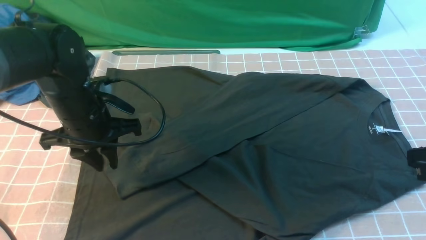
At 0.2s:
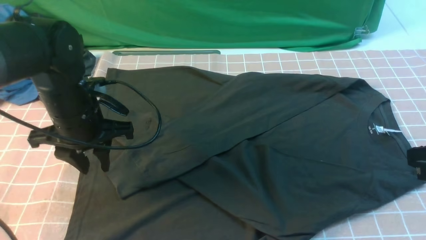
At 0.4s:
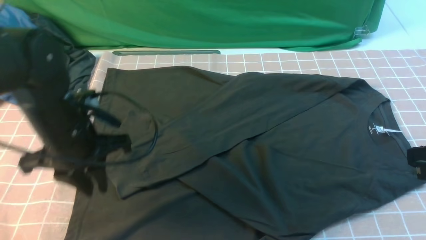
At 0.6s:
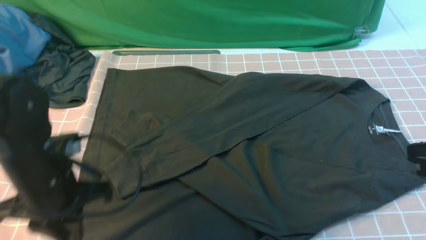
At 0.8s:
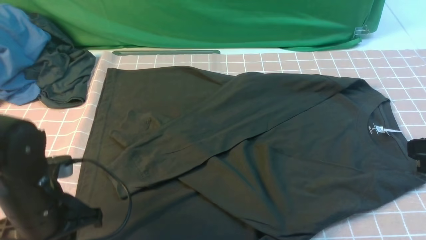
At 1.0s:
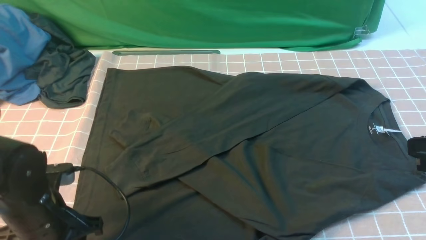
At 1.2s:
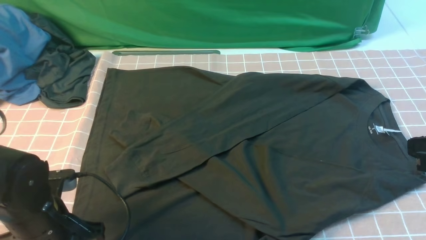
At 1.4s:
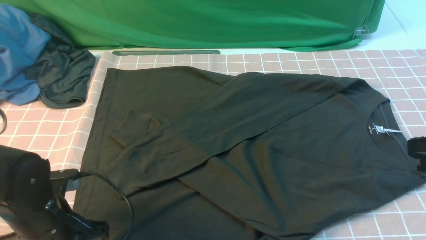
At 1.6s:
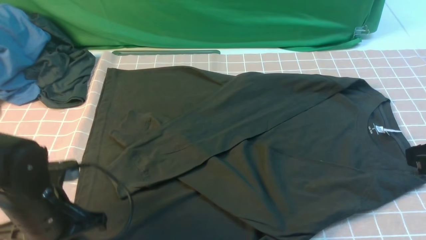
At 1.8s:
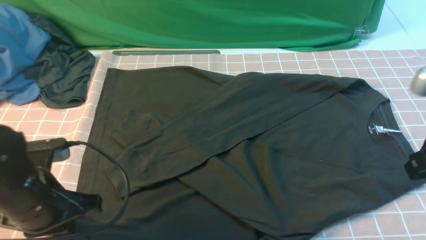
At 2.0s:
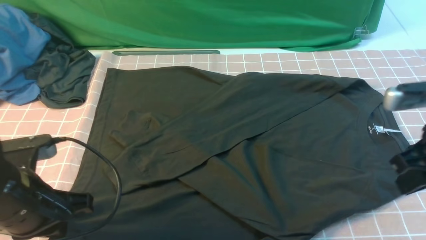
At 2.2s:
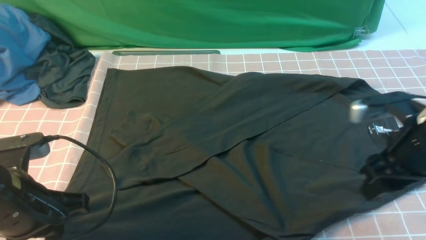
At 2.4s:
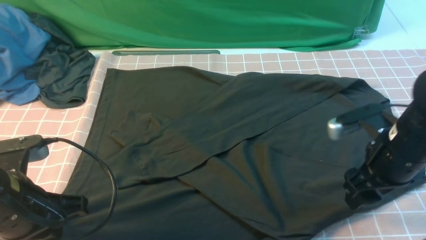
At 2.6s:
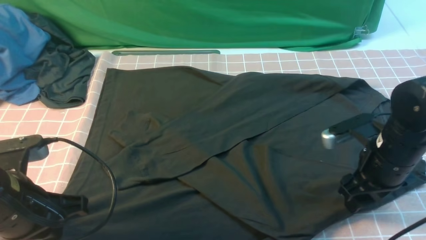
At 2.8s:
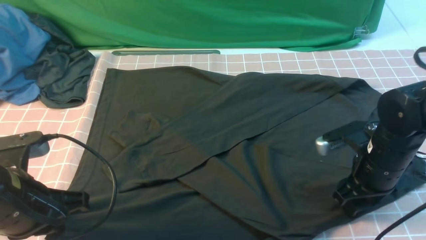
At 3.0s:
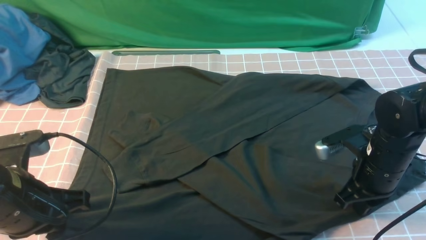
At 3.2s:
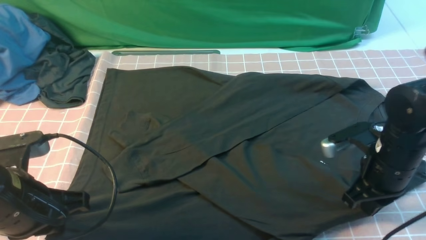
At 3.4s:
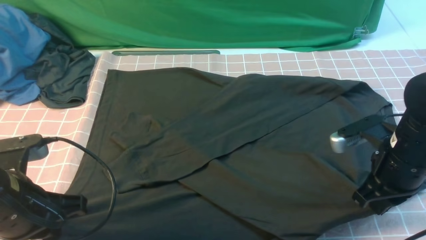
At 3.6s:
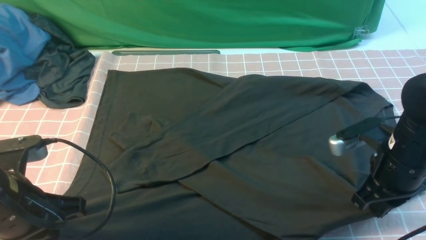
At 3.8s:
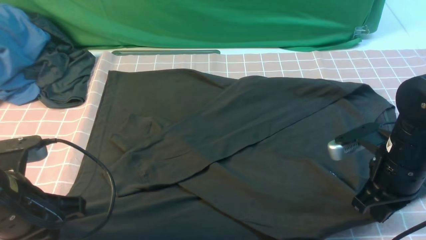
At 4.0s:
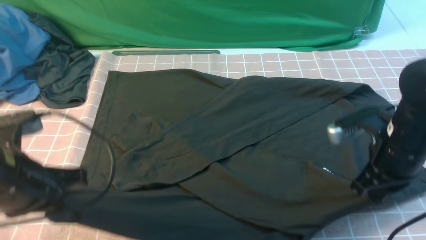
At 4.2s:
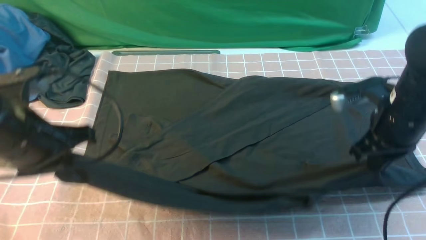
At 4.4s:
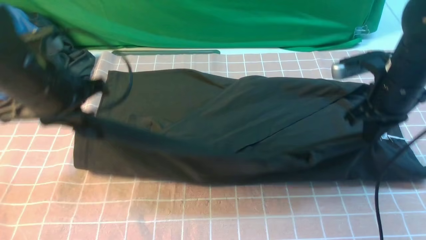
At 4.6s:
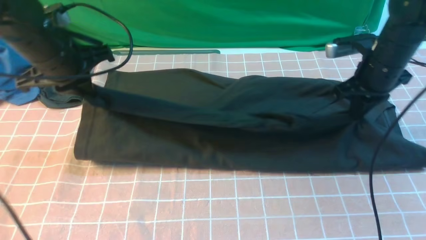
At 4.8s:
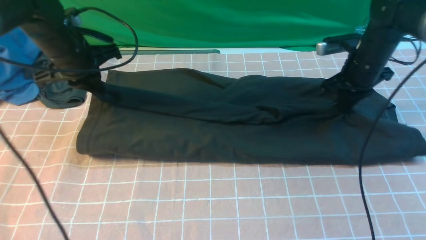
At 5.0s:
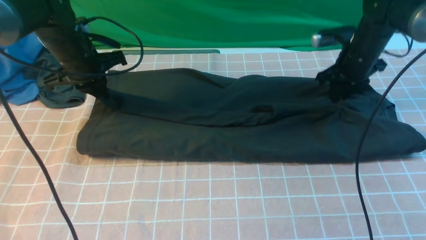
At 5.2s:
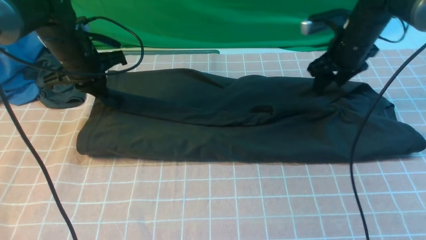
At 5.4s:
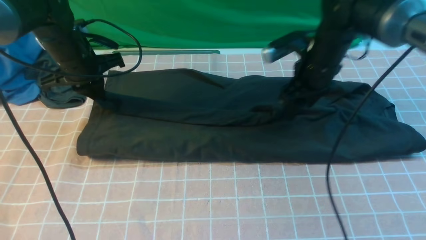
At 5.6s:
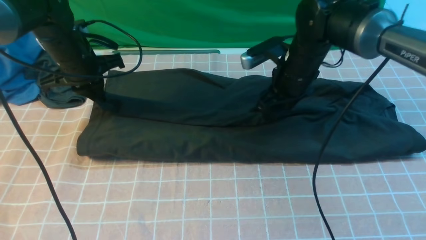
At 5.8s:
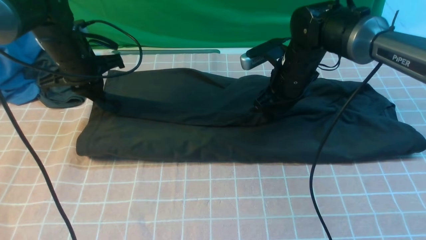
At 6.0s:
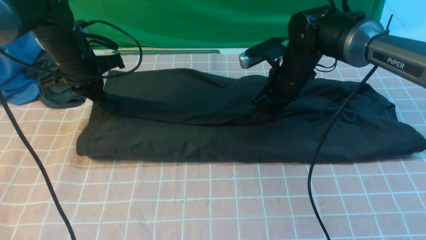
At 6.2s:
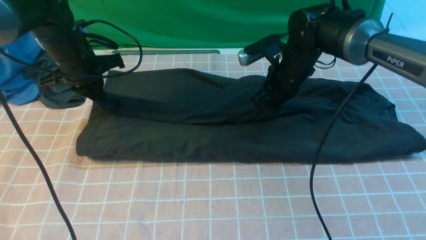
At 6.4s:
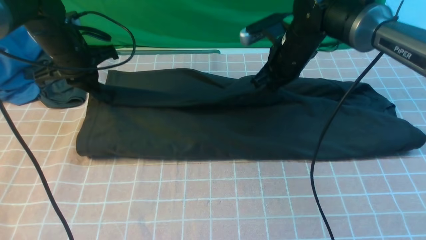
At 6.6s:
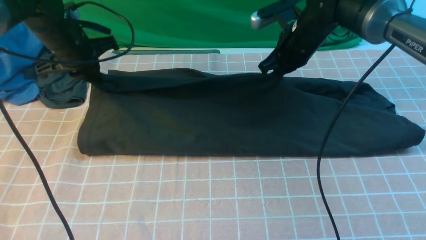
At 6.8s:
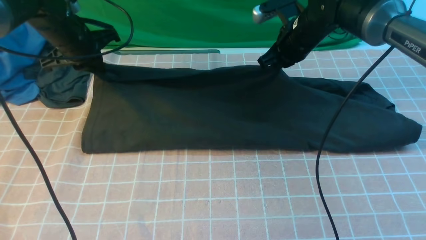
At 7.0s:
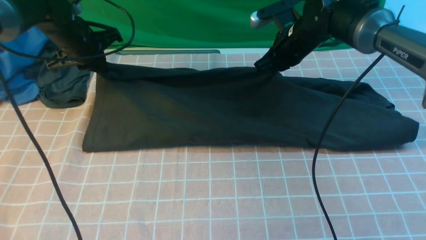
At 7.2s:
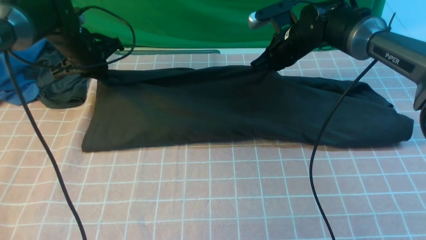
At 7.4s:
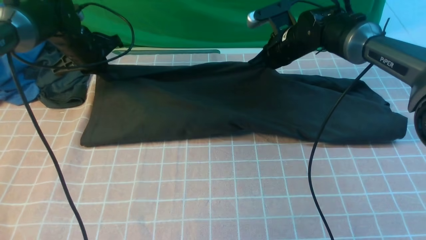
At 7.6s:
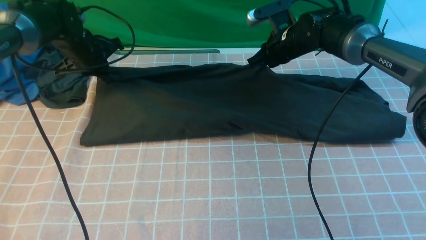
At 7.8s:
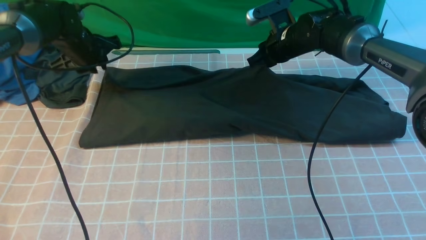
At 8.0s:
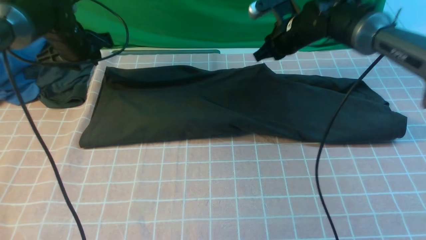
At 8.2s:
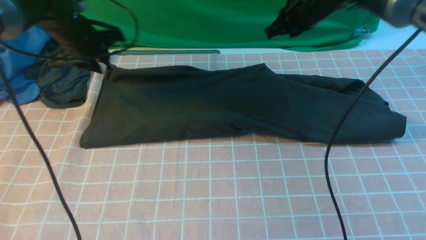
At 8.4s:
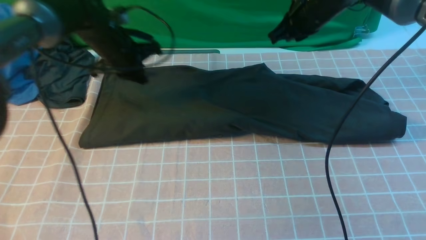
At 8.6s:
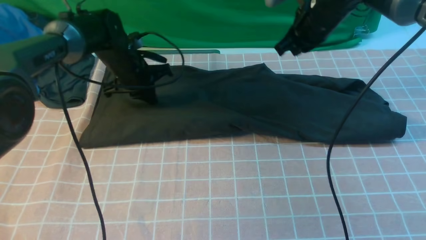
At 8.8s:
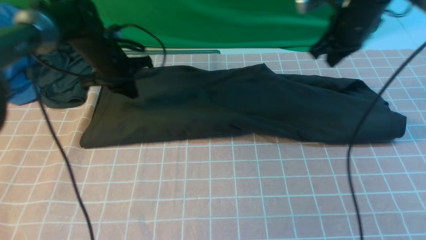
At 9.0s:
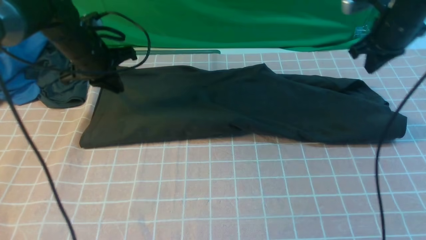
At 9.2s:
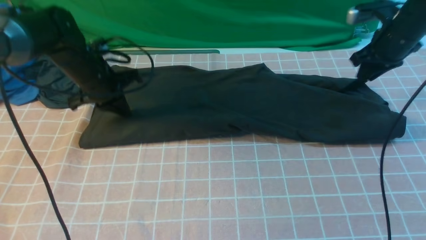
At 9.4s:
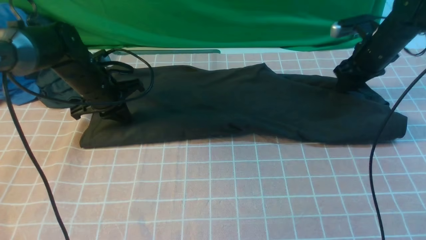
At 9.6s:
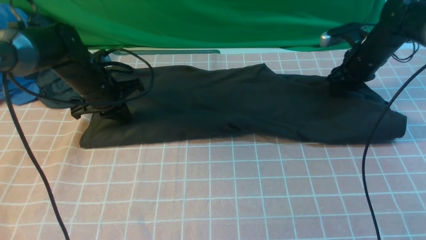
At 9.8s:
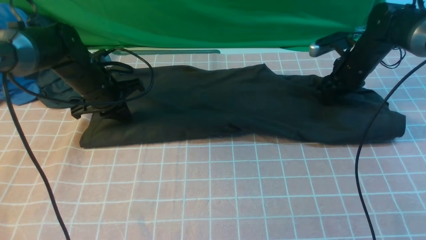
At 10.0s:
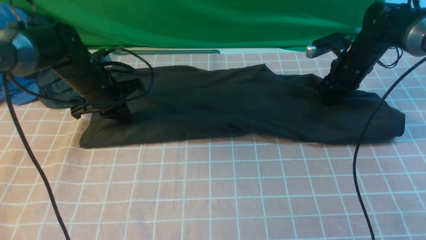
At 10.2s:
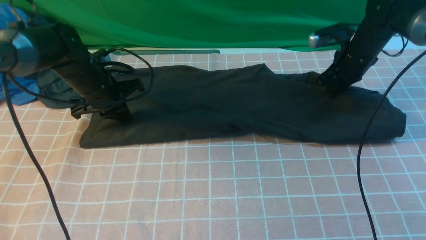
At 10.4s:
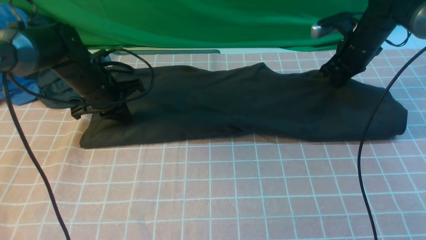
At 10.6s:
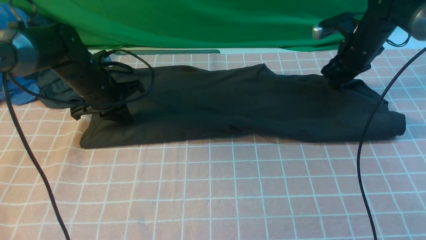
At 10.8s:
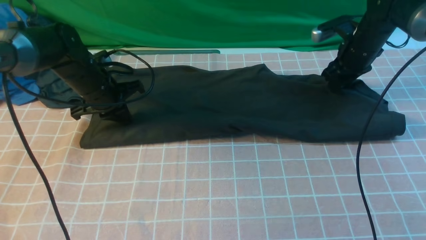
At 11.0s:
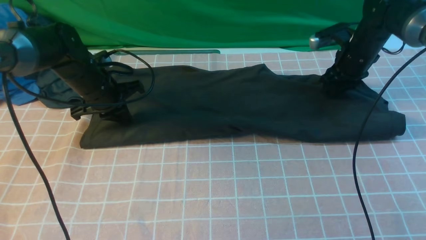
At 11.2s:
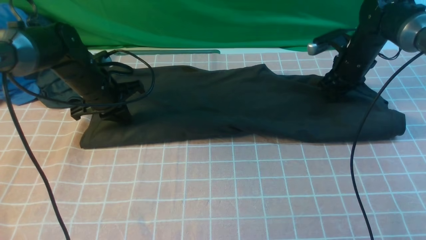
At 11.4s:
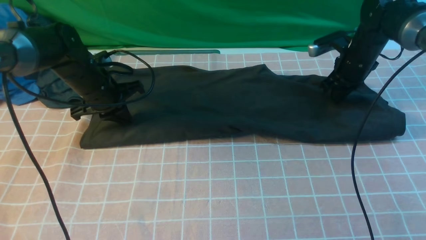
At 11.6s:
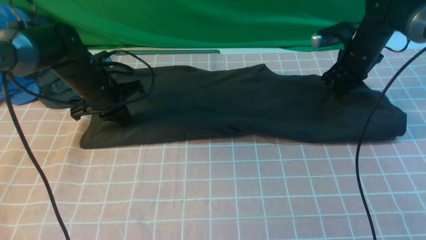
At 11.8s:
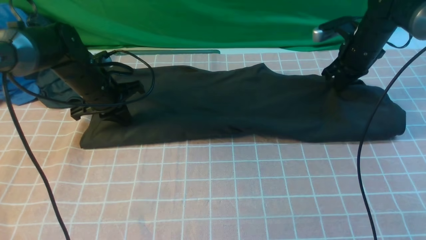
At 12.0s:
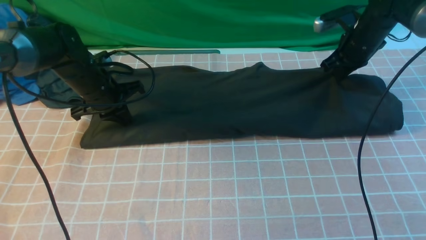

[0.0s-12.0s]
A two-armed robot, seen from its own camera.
Step, 0.4s to 3.6s: use both arms simultaneously to clamp the lower edge of the clothing fabric.
Step, 3.8s to 8.0s: use both arms to drag the lower edge of the fabric forward and fold it over the upper edge.
0.0s to 1.6s: The left gripper shifts approximately 10 cm backward, and opens, then closes again.
1.6s to 3.0s: The left gripper goes some 5 cm upward, while the right gripper travels downward and forward by approximately 15 cm, and opens, then closes once more.
3.0s to 4.4s: Both grippers move forward and upward, approximately 15 cm.
4.4s to 6.0s: The right gripper moves to the left and forward, some 15 cm, and opens, then closes again, while the left gripper is displaced forward and downward by some 15 cm.
6.0s to 7.6s: The two grippers go approximately 5 cm forward.
7.6s to 9.0s: The right gripper travels to the right and upward by some 15 cm, while the left gripper changes place by roughly 5 cm.
9.0s to 10.4s: The right gripper travels downward by some 5 cm, and opens, then closes again.
10.4s to 12.0s: The right gripper opens and closes again.

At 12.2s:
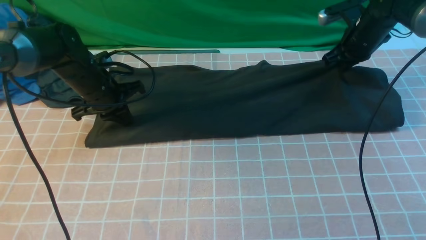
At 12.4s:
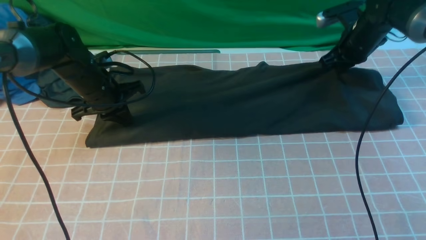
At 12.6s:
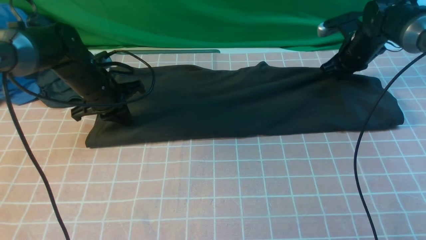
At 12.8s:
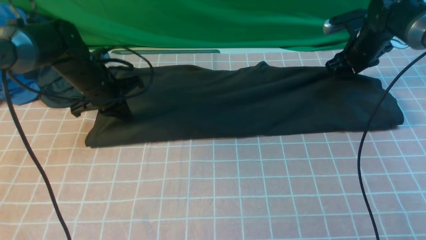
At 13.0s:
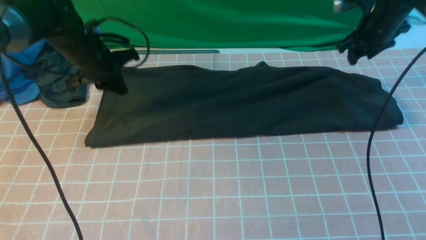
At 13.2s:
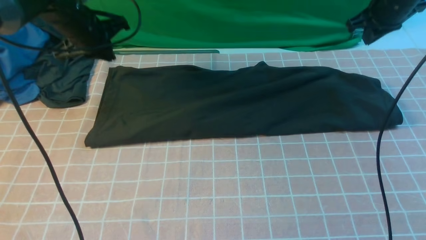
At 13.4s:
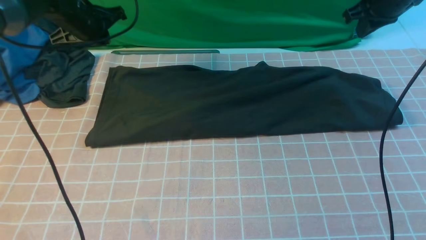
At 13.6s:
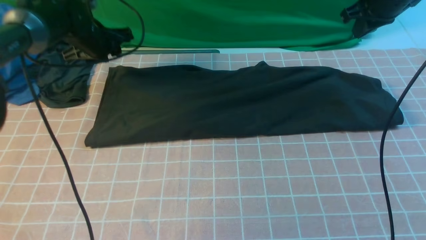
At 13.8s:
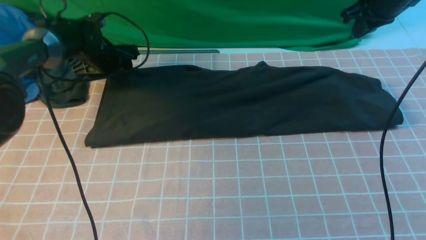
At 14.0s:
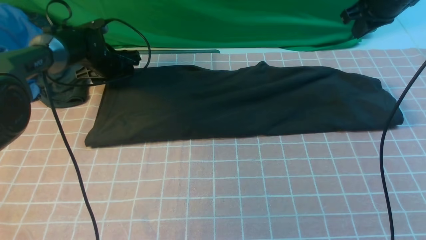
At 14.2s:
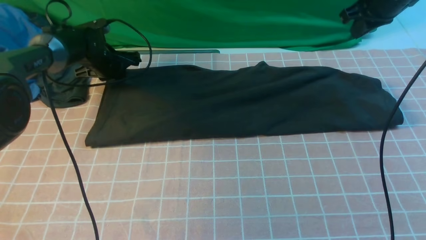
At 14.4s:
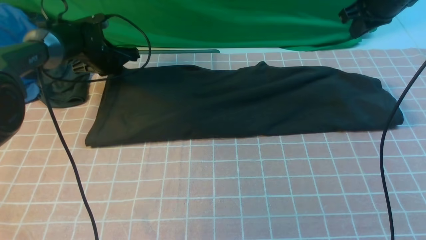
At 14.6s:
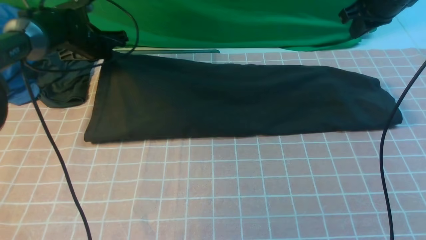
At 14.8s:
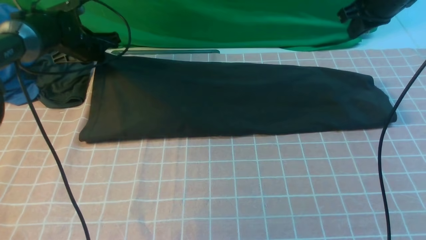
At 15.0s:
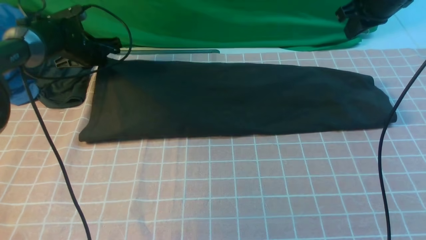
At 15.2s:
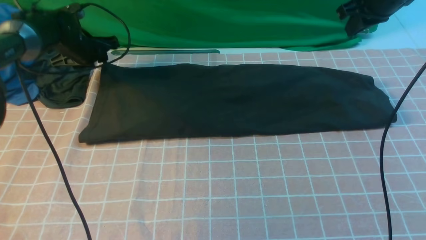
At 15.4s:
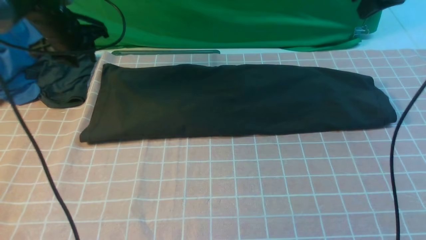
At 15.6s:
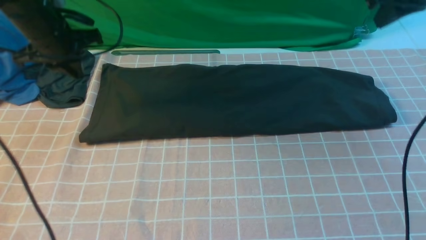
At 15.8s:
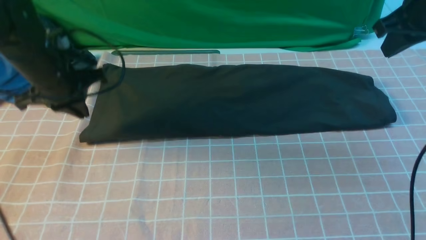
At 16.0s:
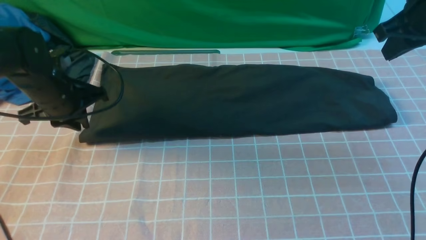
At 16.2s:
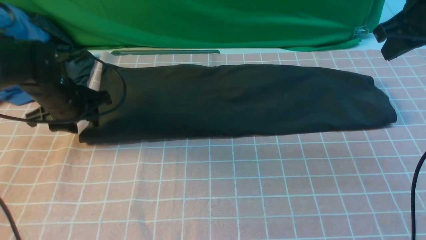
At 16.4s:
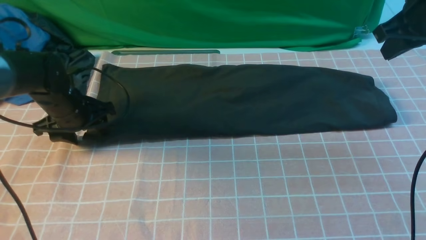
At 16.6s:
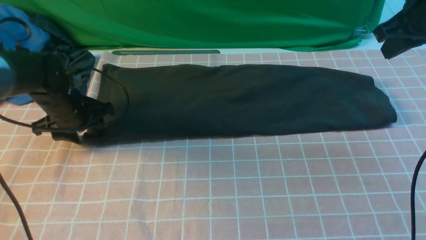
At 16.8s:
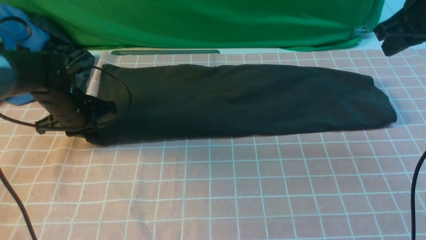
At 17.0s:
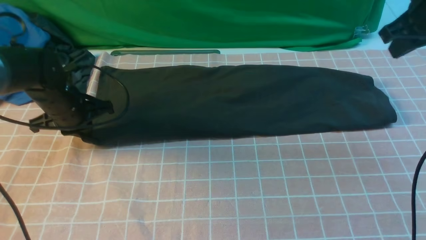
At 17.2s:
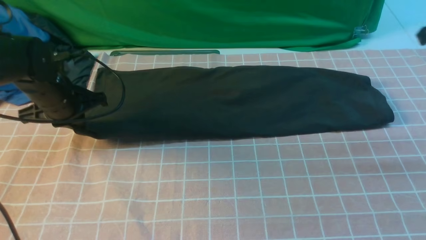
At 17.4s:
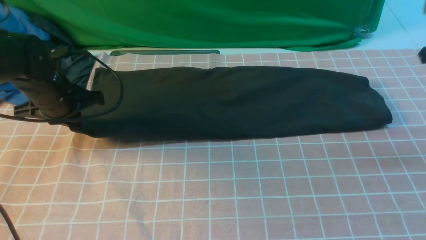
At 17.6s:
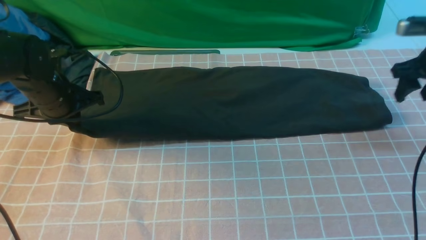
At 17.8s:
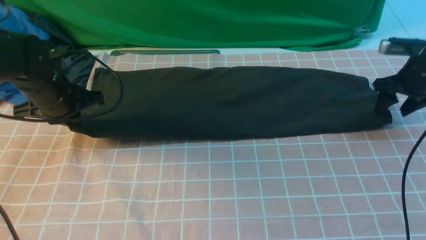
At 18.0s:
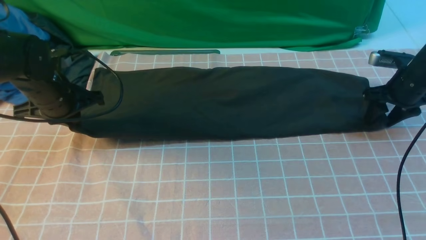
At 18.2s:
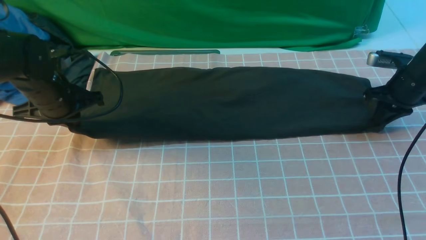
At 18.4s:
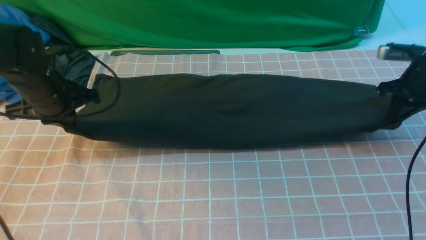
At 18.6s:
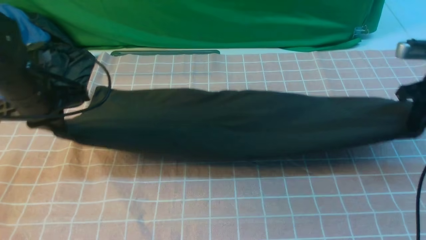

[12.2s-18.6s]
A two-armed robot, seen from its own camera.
12.2s to 13.8s: The left gripper moves forward, about 10 cm, and opens. The right gripper is displaced upward by about 10 cm, and opens and closes again.
13.8s to 15.4s: The left gripper goes about 10 cm upward and backward, and closes its fingers; the right gripper ends up about 5 cm from where it was.
15.4s to 17.0s: The left gripper moves backward and downward, approximately 10 cm, and closes; the right gripper is displaced backward by approximately 5 cm.
17.0s to 18.6s: The left gripper goes approximately 10 cm backward and upward; the right gripper moves downward, roughly 10 cm, and opens, then closes again.
